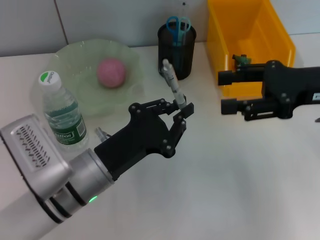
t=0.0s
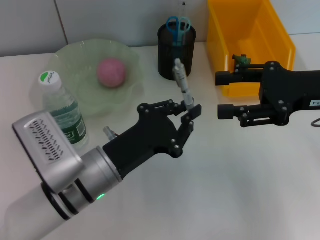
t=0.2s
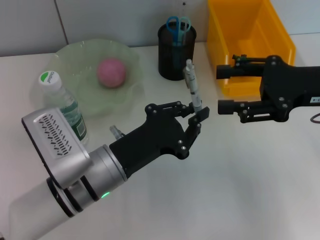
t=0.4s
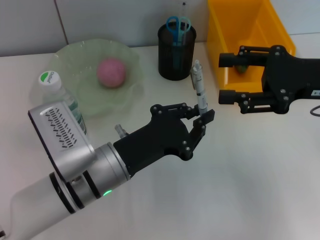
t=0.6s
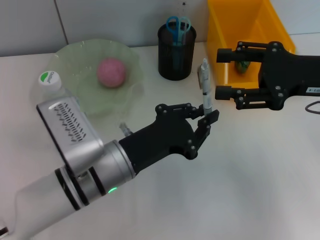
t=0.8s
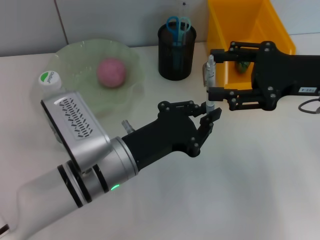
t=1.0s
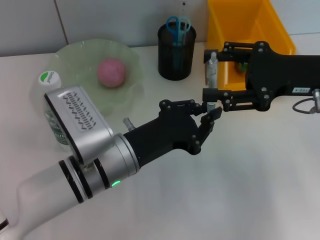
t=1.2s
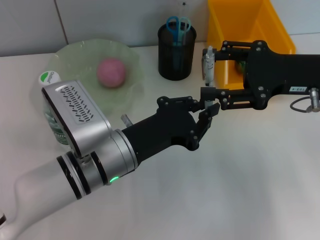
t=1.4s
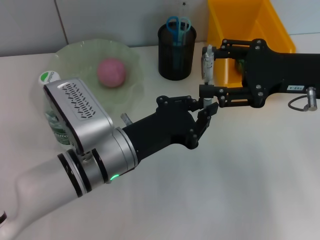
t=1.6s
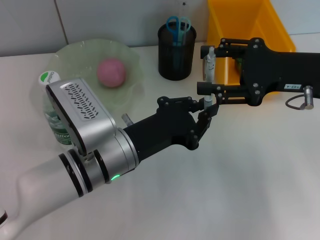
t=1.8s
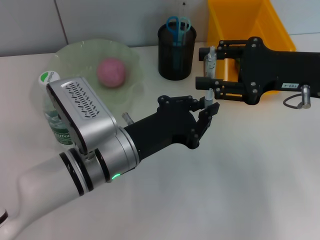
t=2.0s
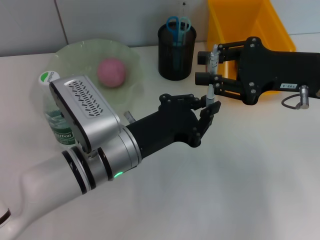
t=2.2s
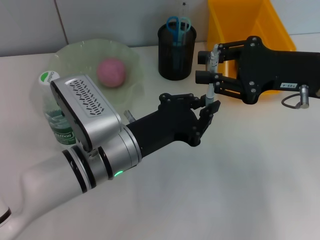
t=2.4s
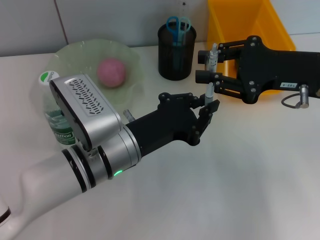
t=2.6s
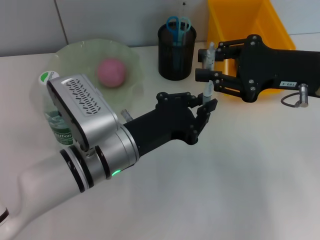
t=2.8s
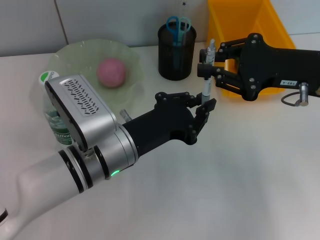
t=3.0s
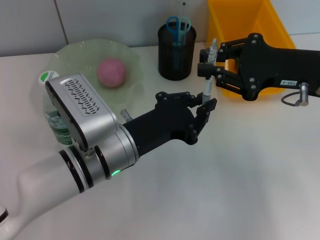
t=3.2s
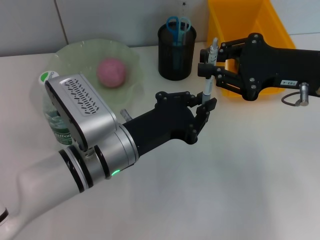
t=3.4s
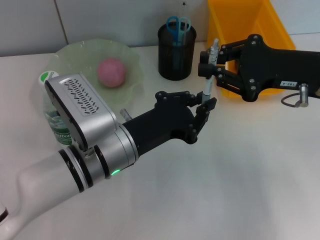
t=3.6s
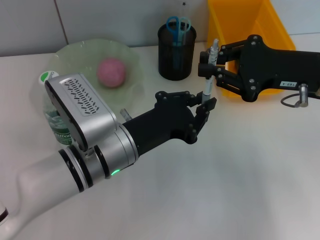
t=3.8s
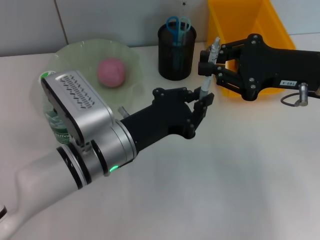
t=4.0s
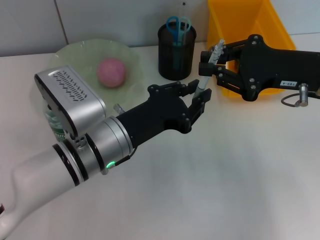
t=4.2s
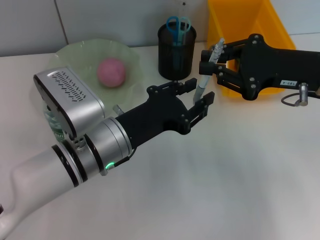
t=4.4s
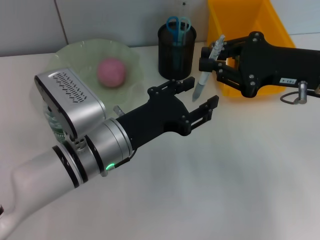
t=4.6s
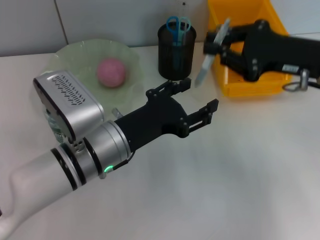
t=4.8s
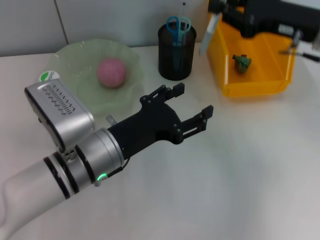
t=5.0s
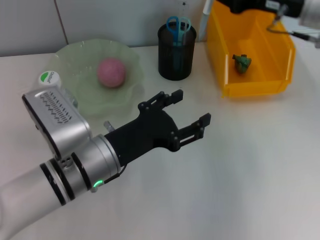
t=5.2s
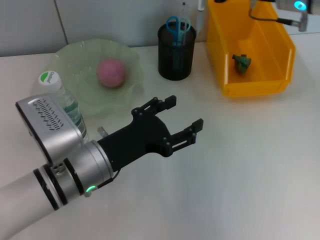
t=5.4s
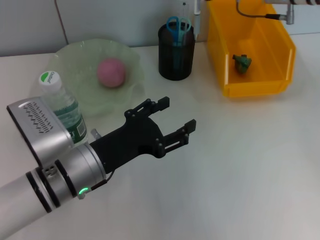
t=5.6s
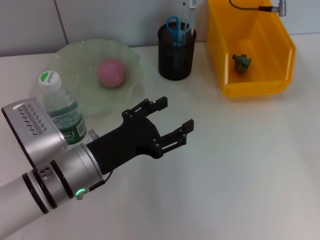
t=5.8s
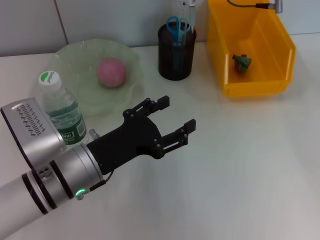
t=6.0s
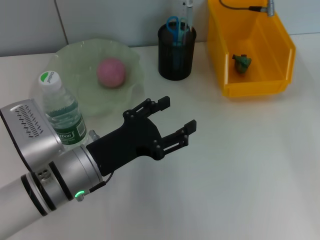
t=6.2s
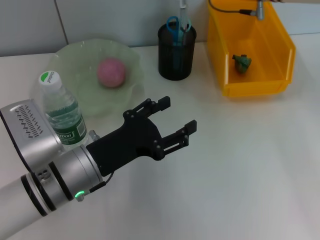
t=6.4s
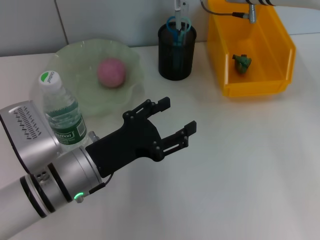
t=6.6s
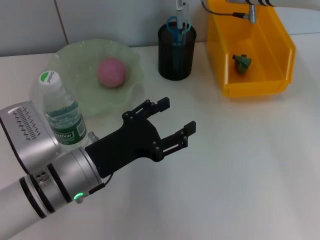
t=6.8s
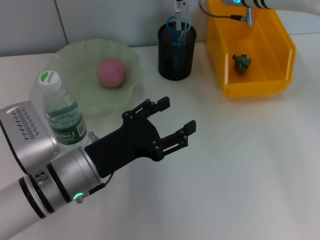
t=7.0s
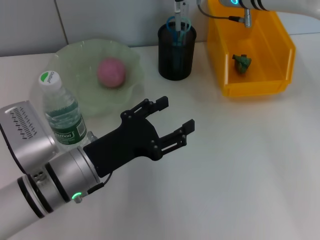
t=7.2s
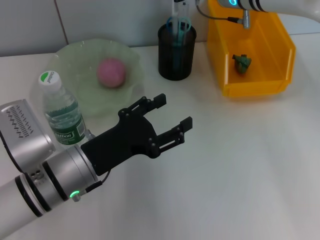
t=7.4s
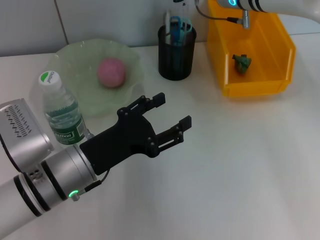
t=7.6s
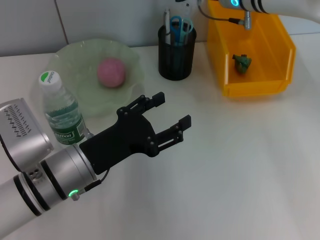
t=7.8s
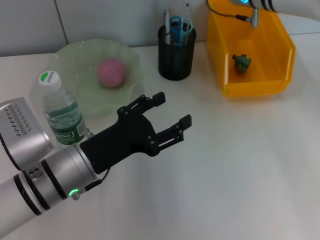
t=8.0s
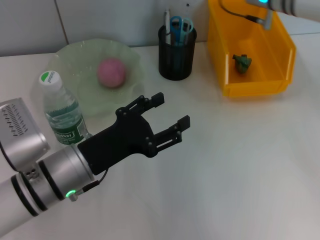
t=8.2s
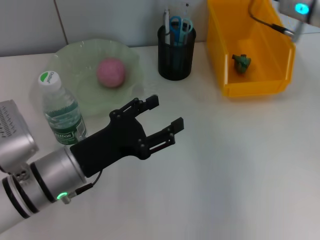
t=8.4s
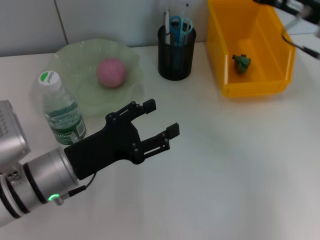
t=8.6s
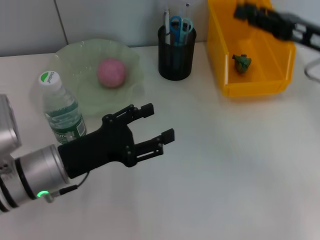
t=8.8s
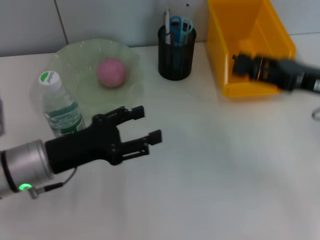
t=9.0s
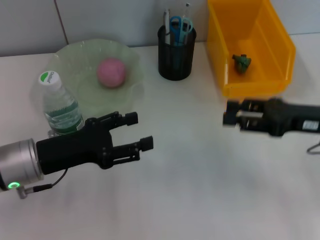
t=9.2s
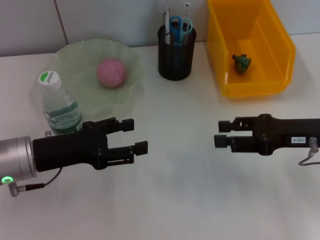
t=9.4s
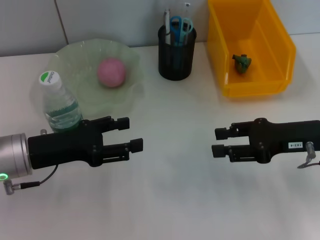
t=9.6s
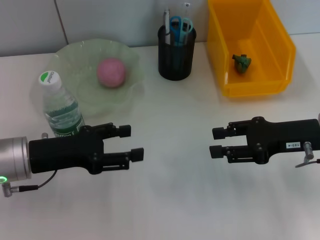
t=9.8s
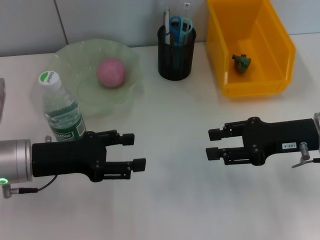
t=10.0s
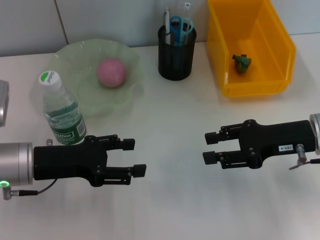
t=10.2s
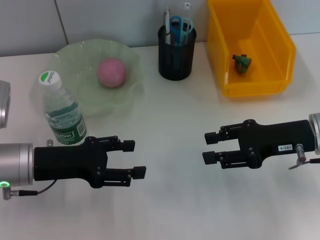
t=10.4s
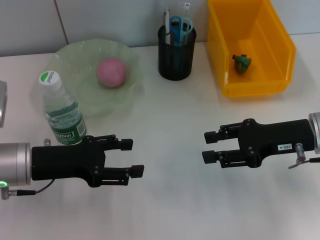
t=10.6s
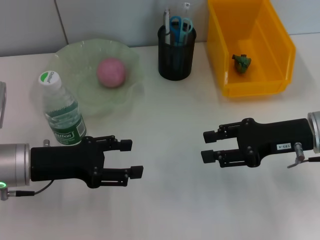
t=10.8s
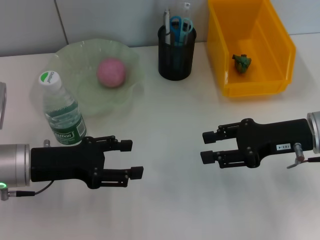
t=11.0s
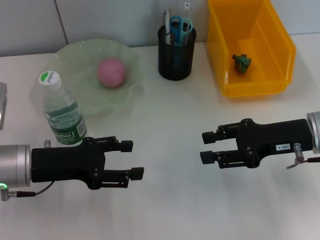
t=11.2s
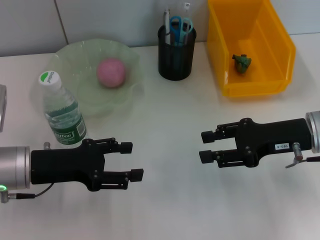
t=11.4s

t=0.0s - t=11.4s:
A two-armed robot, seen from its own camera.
Step, t=0.0s - t=4.4s: Pass the gray spring-action pen from the left hand to the right hand.
Step, t=4.6s - t=8.0s: Place the gray spring-action pen into the pen holder with the right hand.
t=1.4s - t=2.8s: The right gripper closes up.
t=2.8s - t=4.2s: The grippers make only small movements.
t=4.2s - t=5.6s: The right gripper travels forward by approximately 15 cm. The left gripper changes place by some 5 cm, and opens its fingers.
t=5.6s - t=7.2s: The right gripper heads to the left, covering roughly 5 cm.
t=7.2s - t=8.6s: The right gripper shifts about 15 cm to the right and backward, and opens up.
t=8.6s - t=10.0s: The left gripper travels to the left by about 5 cm. Meanwhile the right gripper travels downward and backward by roughly 10 cm.
t=10.0s - t=11.4s: Both grippers stay put.

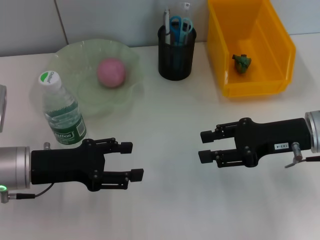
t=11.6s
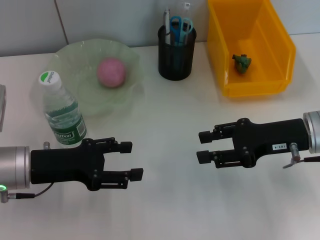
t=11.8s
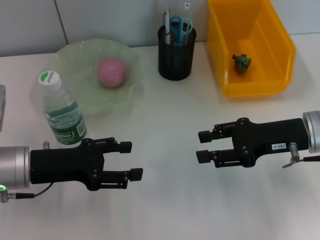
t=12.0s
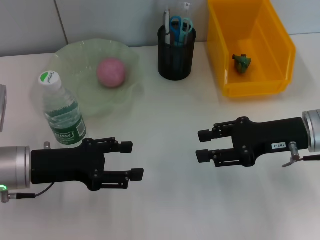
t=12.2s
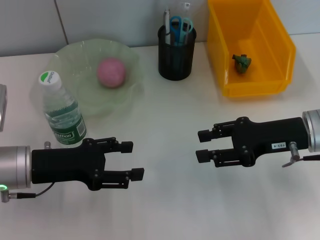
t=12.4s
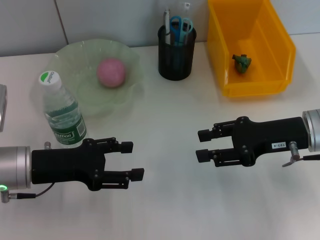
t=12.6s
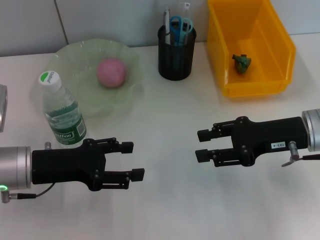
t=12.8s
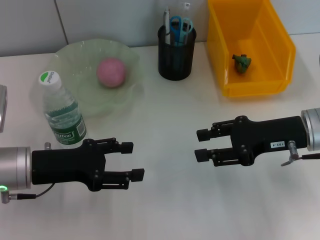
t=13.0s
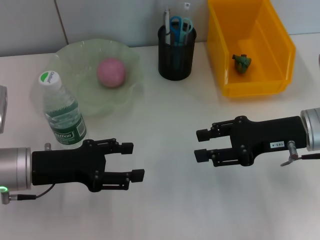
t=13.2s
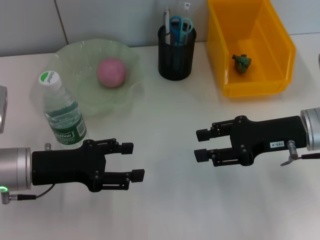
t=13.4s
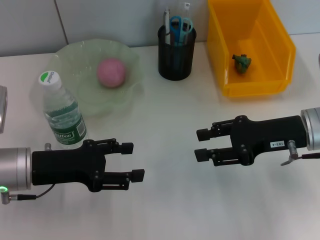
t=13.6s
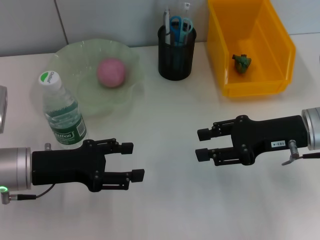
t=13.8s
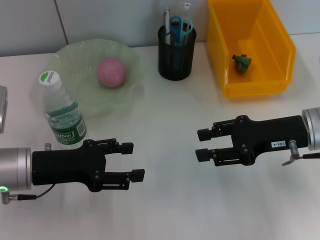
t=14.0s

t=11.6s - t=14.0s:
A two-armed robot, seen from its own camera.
t=11.6s - t=14.0s: The two grippers keep their place.

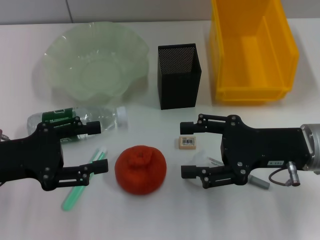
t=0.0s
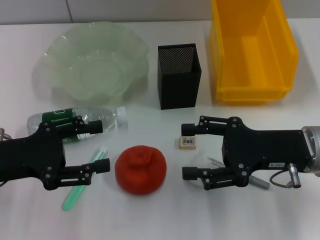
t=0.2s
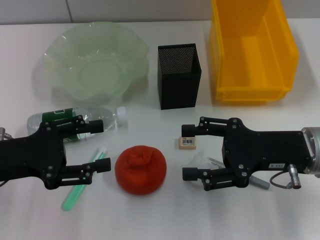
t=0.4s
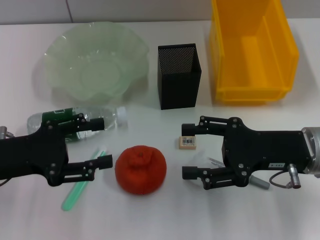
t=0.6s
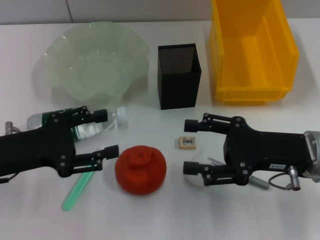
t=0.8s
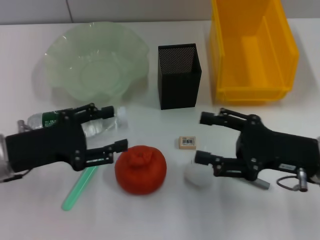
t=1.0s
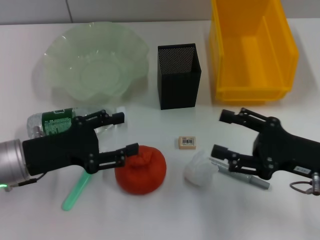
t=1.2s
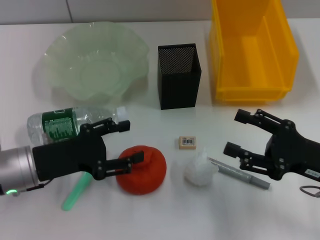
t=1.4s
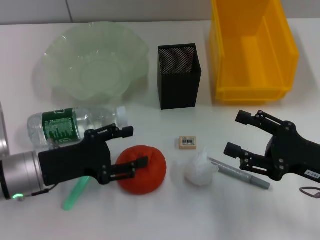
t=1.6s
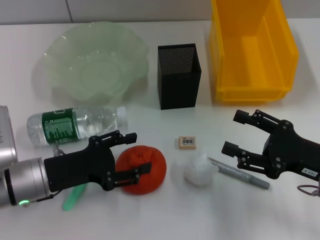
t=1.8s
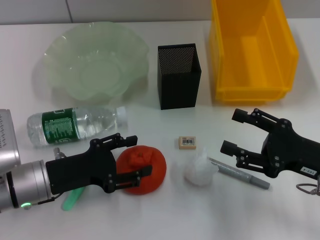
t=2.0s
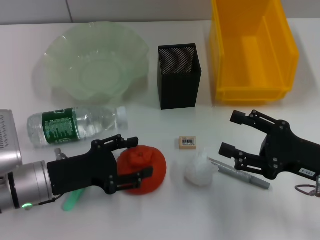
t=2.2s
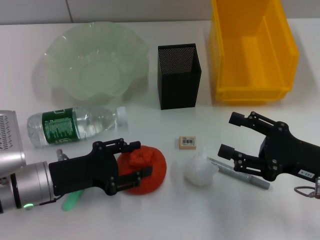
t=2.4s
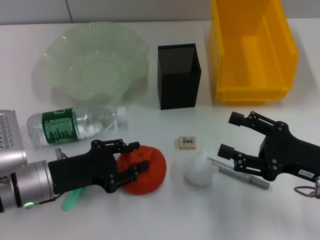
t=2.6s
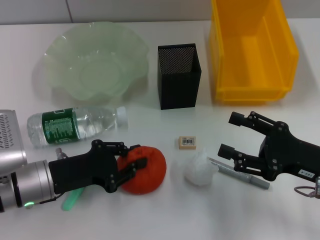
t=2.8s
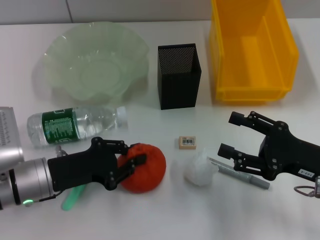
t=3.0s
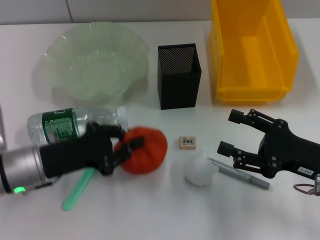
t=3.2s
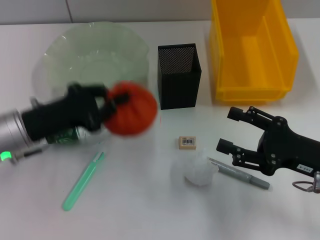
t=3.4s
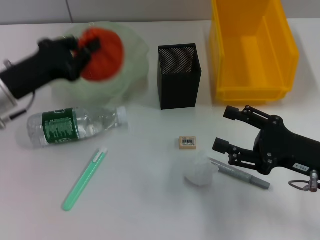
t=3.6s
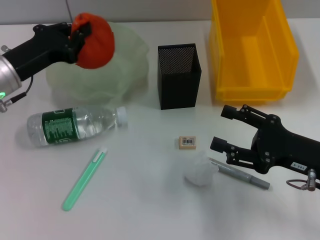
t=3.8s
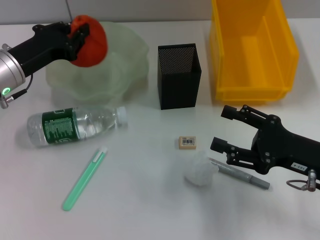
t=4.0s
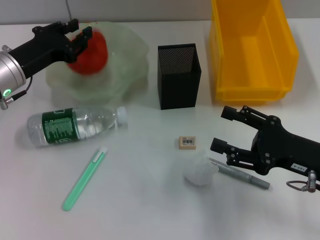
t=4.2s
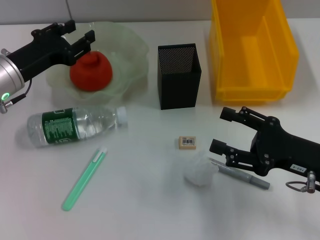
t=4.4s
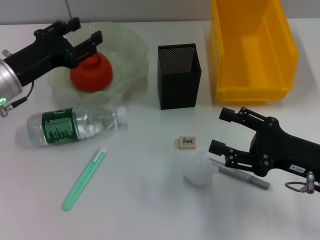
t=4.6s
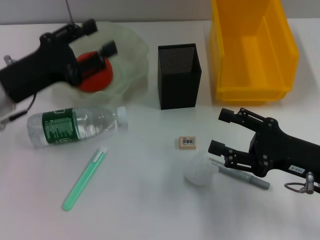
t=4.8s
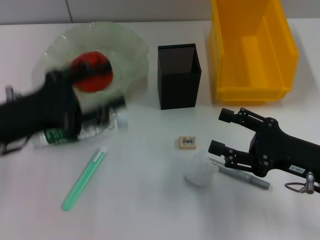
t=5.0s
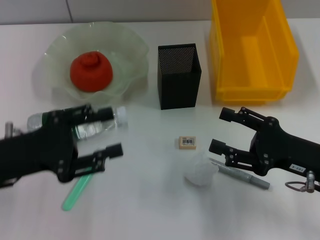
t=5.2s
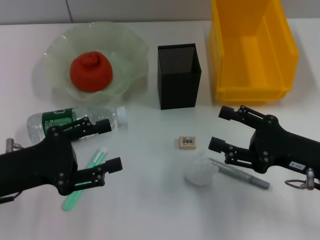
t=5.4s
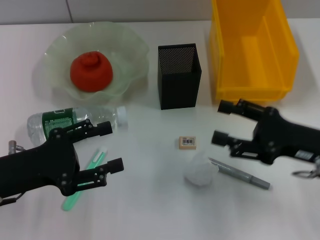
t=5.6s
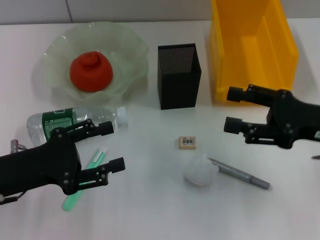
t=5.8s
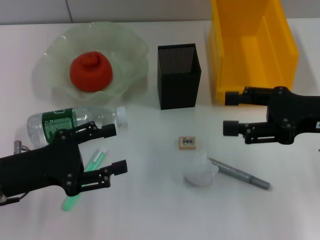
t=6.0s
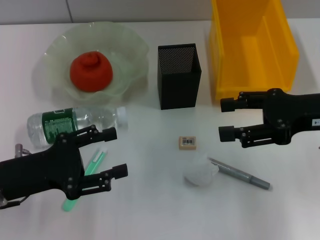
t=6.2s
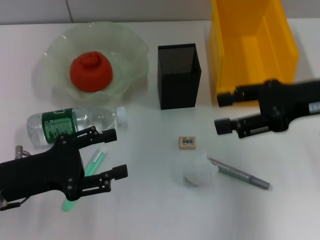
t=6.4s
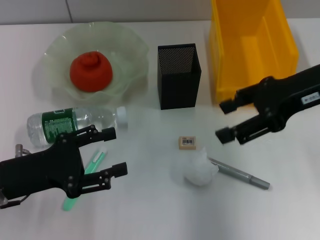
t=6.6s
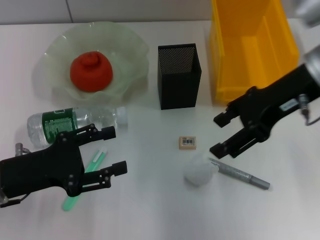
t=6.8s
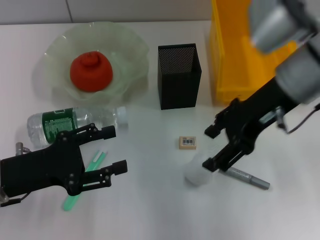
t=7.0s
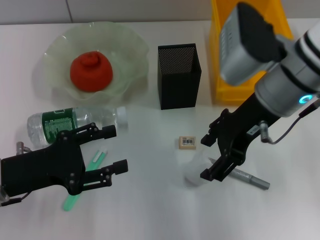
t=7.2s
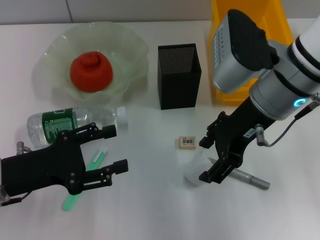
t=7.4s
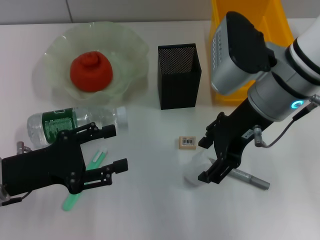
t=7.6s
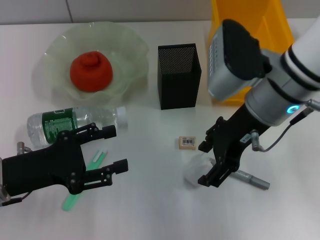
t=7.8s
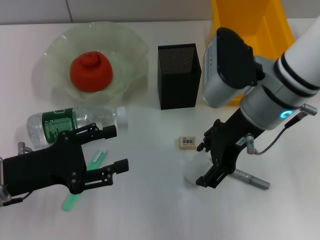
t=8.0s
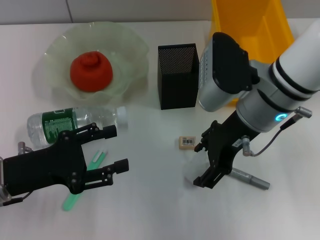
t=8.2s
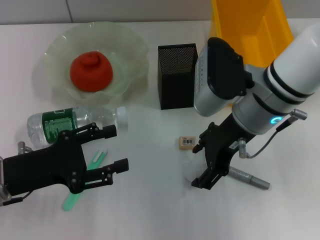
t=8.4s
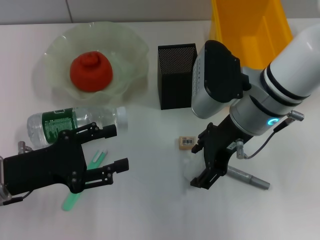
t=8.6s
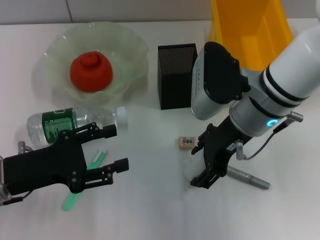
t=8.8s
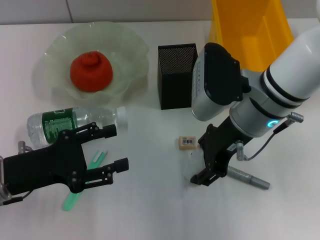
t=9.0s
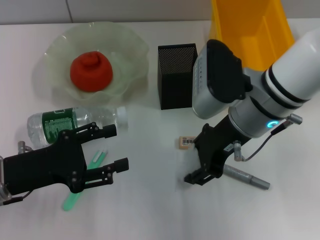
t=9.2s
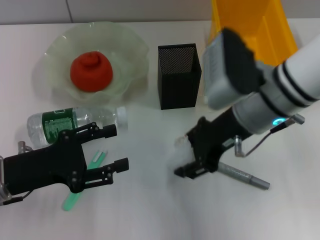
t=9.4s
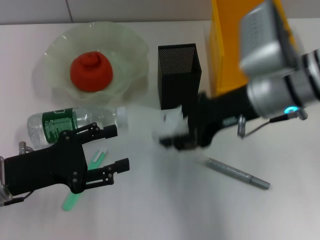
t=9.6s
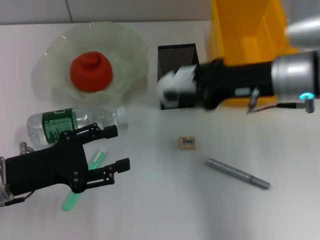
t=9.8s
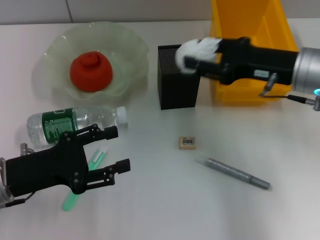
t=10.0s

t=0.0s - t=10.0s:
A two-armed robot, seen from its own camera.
Step, t=0.0s - t=2.8s: Grab the orange with the left hand.
Step, t=3.2s - t=4.8s: Place the orange into the fruit bowl with the left hand.
Step, t=5.0s - t=9.0s: Grab the paper ball with the right hand.
t=0.0s - t=1.4s: The right gripper goes roughly 5 cm to the right. Meanwhile the left gripper is displaced downward by some 5 cm.
t=1.4s - t=2.8s: The left gripper closes its fingers.
t=2.8s - t=4.2s: The left gripper moves forward and upward, some 15 cm, and closes up.
t=4.2s - t=5.8s: The right gripper travels upward by approximately 5 cm. The left gripper moves backward, about 15 cm, and opens.
t=5.8s - t=7.2s: The right gripper goes roughly 15 cm to the left, upward and forward.
t=7.2s - t=8.6s: The grippers move only a little.
t=8.6s - t=10.0s: The right gripper moves to the right, approximately 10 cm, and closes its fingers.
